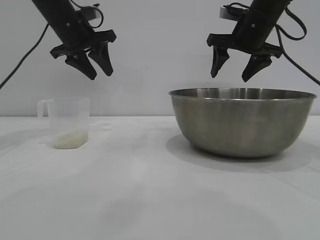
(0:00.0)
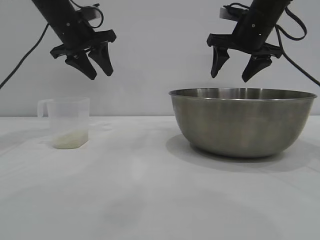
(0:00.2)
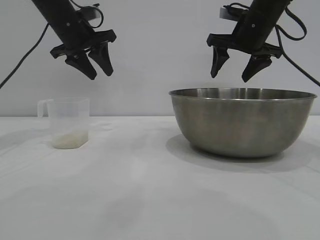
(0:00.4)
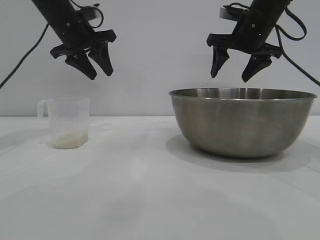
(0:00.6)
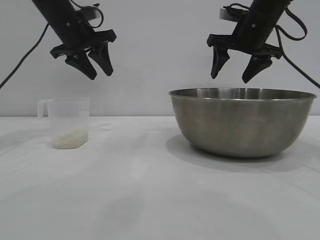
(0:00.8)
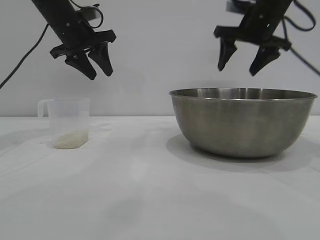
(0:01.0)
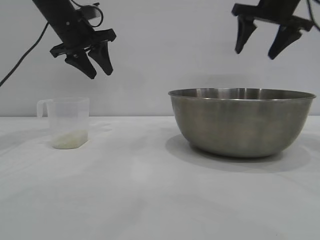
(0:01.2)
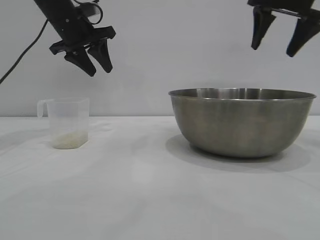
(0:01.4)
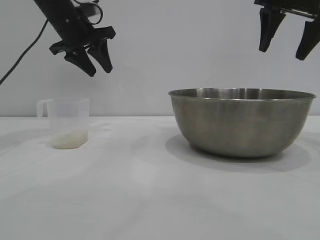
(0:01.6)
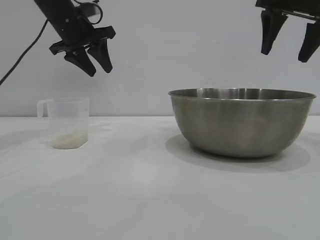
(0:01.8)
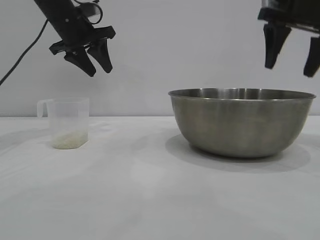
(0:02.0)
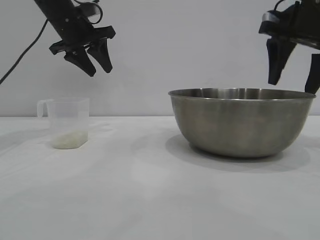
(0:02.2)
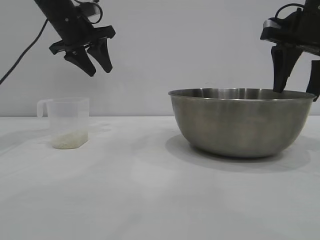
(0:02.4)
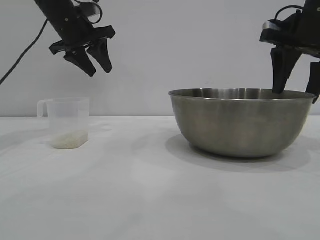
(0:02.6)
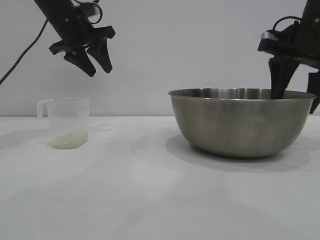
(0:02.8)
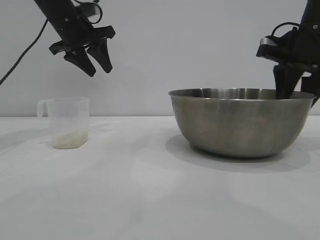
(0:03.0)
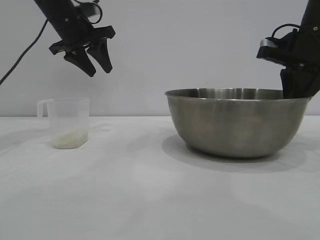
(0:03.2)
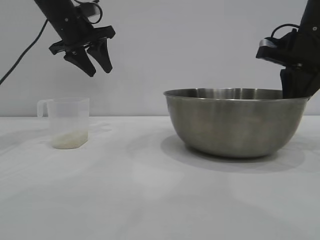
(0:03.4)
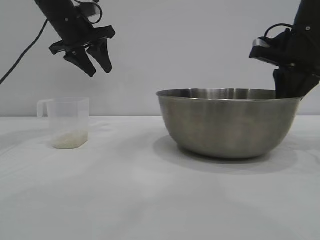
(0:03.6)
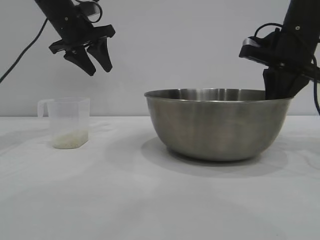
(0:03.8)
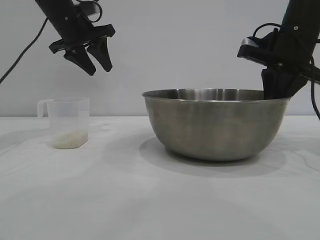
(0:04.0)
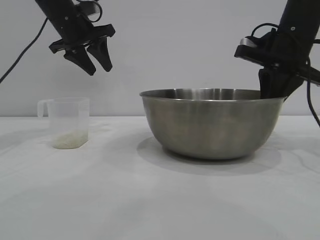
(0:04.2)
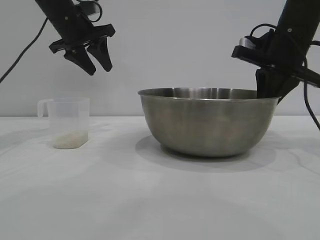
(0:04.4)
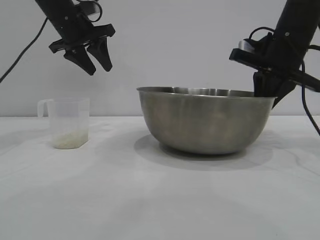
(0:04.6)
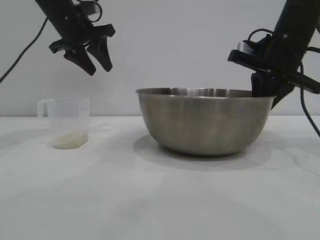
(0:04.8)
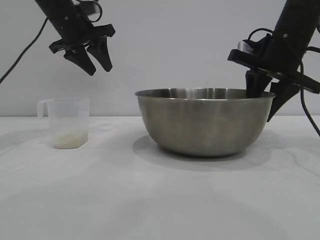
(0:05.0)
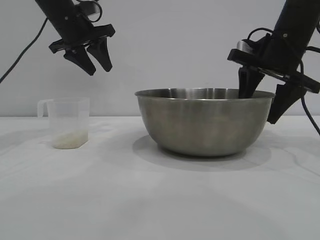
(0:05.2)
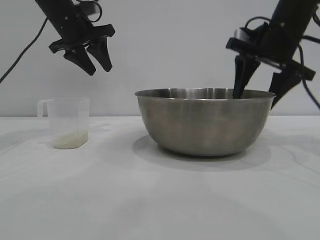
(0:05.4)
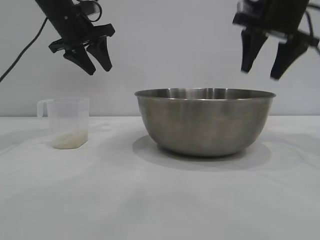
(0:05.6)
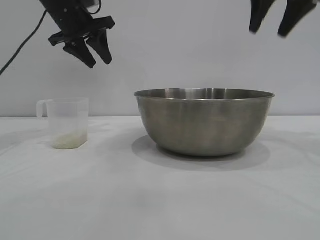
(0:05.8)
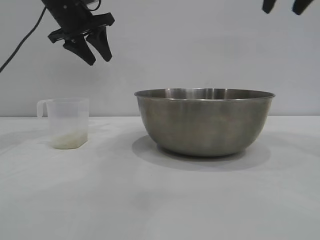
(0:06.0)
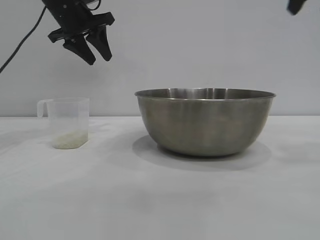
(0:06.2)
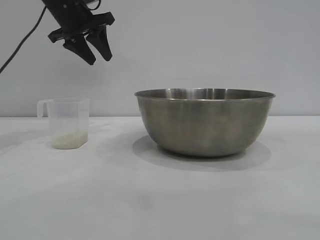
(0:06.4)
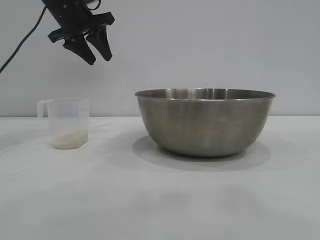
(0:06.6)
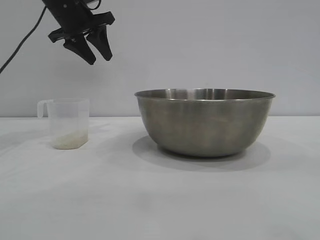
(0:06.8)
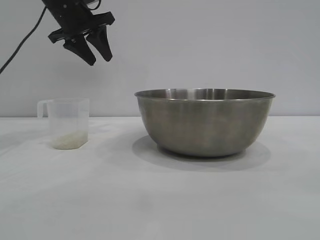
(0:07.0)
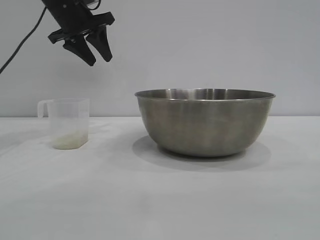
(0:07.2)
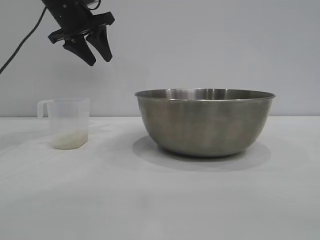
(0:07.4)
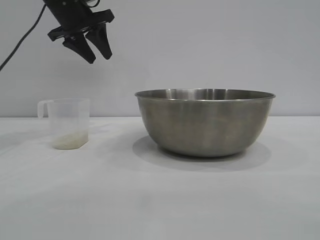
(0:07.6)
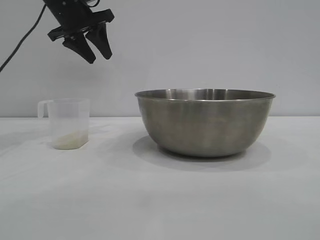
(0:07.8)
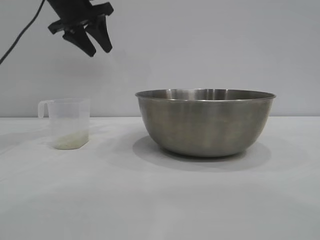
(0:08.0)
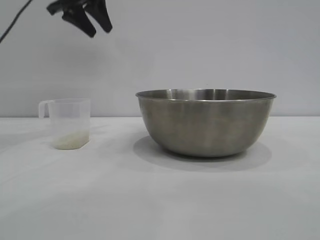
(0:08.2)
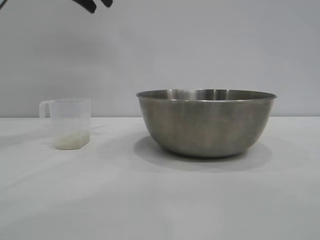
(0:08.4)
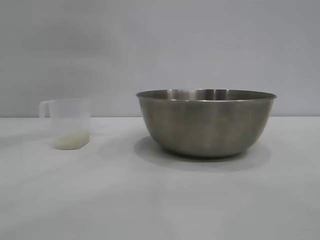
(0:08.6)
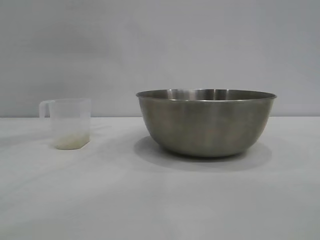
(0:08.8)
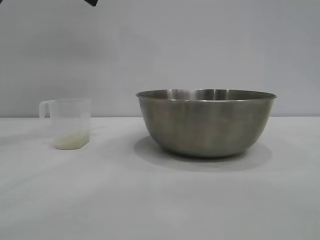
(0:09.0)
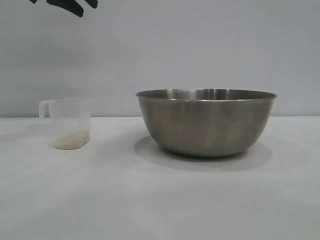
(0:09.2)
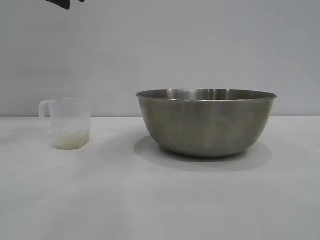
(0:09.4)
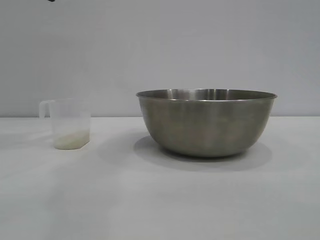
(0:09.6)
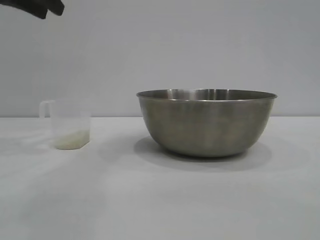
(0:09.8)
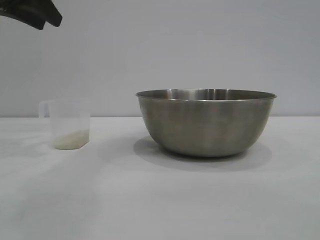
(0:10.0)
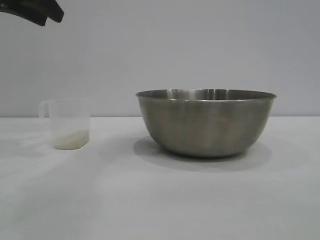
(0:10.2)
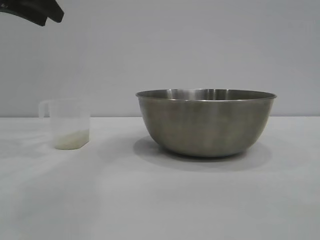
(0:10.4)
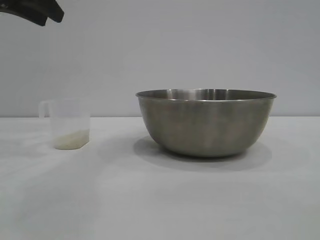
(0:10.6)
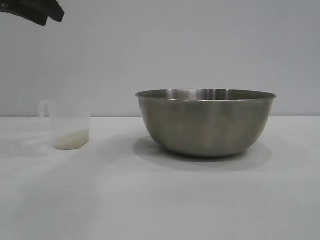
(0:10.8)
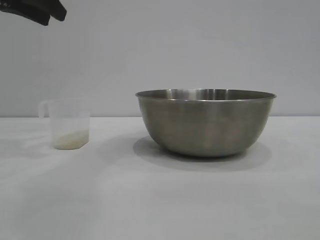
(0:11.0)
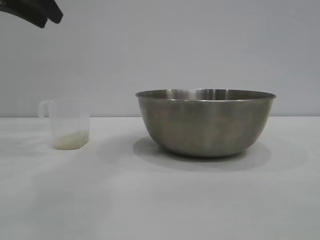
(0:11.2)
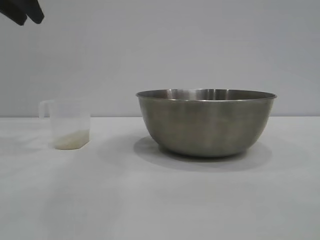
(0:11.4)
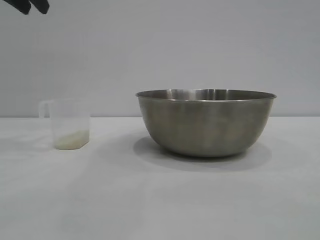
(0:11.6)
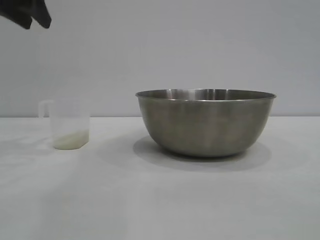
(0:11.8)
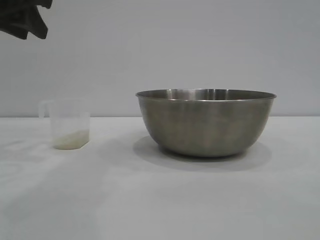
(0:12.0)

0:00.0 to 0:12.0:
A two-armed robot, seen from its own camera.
Task of the whole recording: the right gripper grasp the rice container and place it in the center of the table, the left gripper grasp the rice scoop and pour the rice into the rice container.
Step, 0:00.0 to 0:05.4: Move the bowl to the center of view with the right gripper.

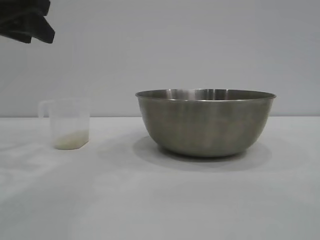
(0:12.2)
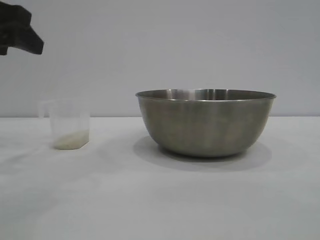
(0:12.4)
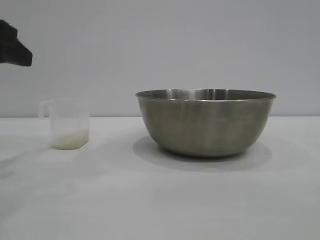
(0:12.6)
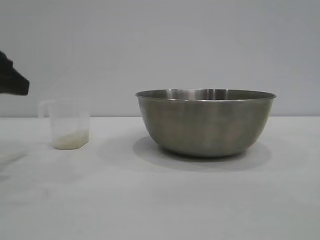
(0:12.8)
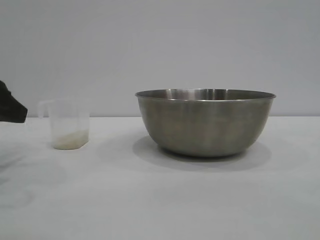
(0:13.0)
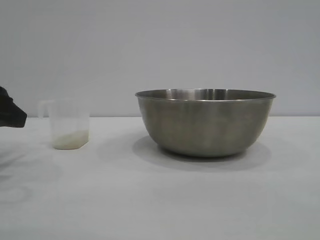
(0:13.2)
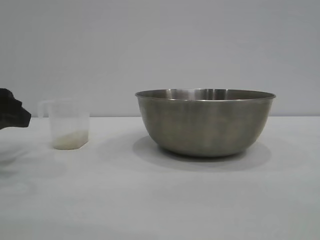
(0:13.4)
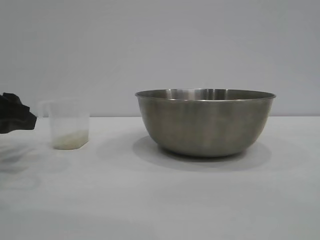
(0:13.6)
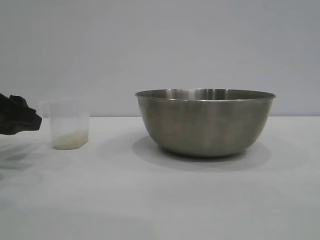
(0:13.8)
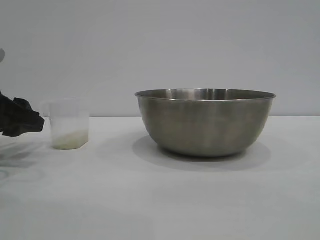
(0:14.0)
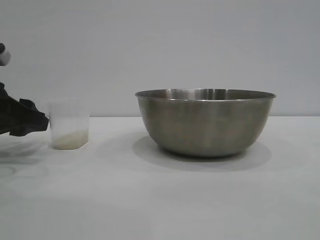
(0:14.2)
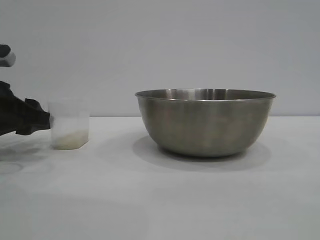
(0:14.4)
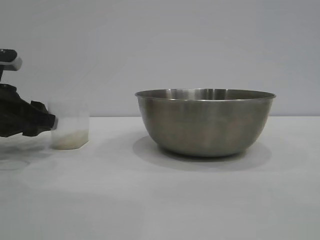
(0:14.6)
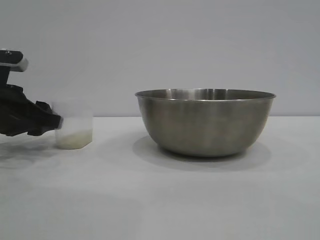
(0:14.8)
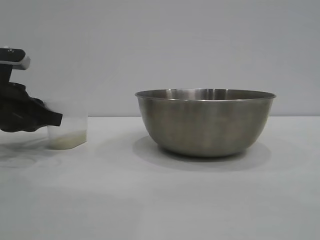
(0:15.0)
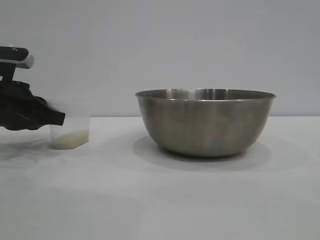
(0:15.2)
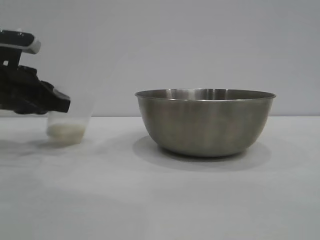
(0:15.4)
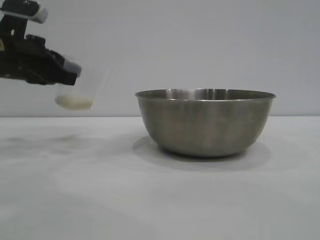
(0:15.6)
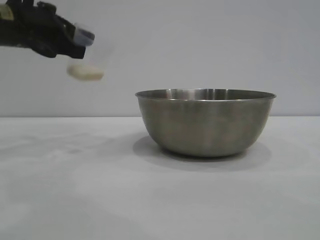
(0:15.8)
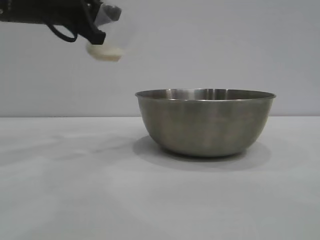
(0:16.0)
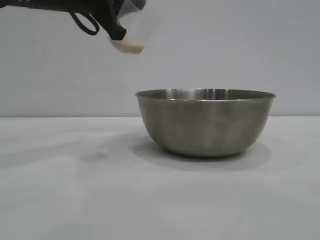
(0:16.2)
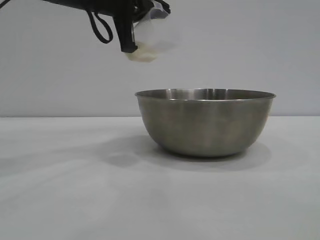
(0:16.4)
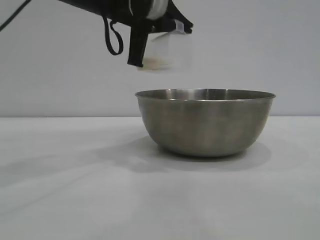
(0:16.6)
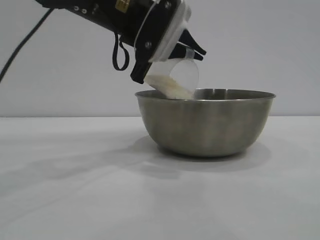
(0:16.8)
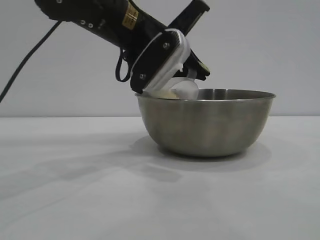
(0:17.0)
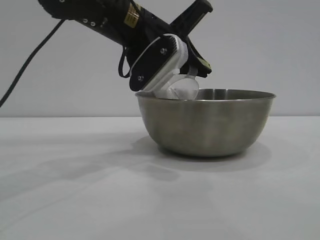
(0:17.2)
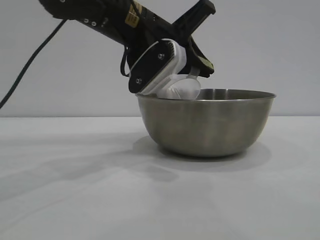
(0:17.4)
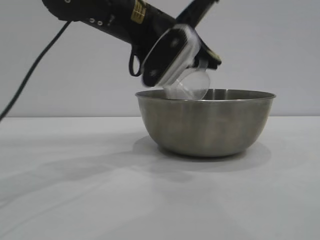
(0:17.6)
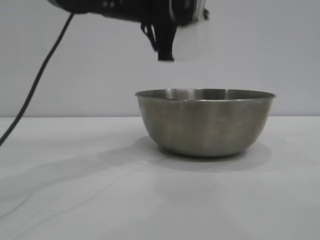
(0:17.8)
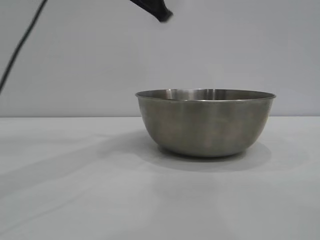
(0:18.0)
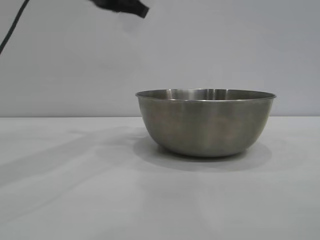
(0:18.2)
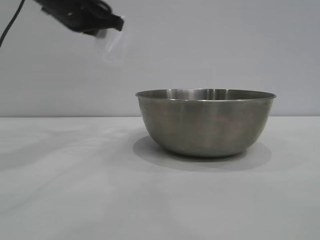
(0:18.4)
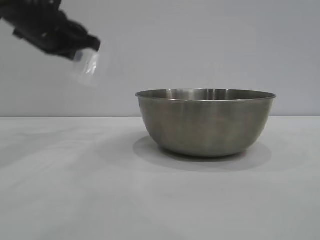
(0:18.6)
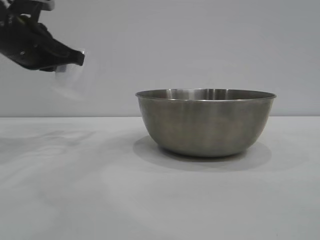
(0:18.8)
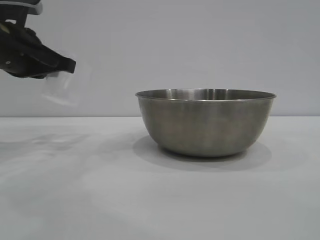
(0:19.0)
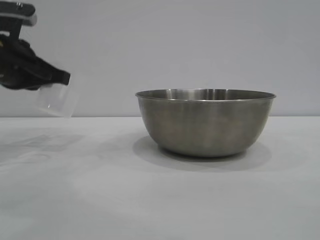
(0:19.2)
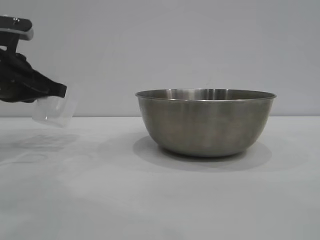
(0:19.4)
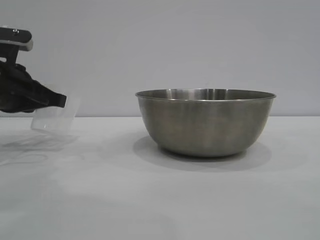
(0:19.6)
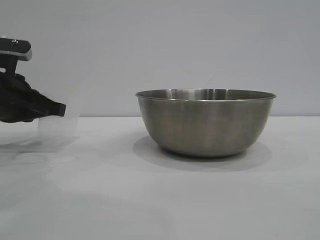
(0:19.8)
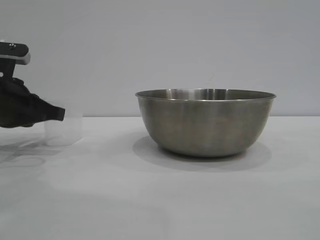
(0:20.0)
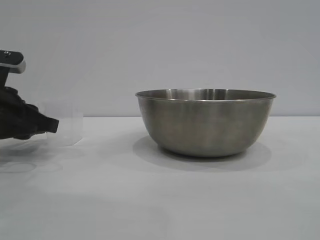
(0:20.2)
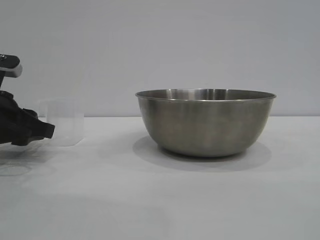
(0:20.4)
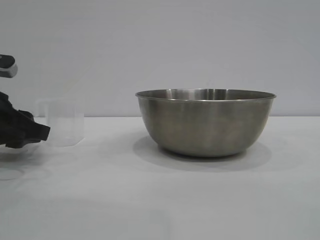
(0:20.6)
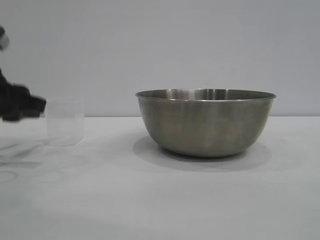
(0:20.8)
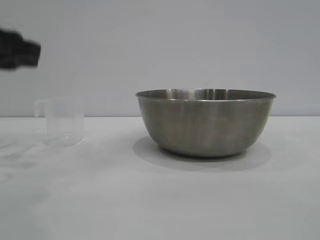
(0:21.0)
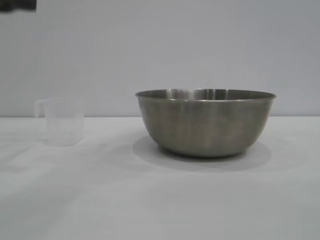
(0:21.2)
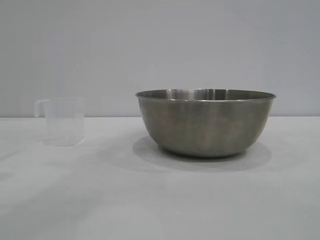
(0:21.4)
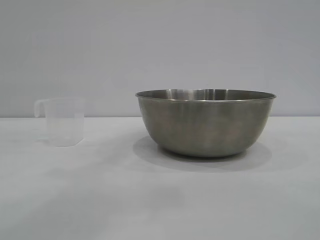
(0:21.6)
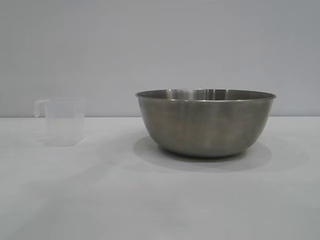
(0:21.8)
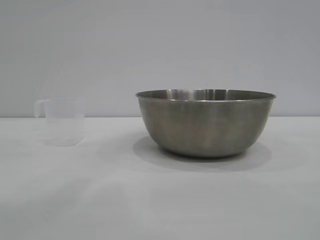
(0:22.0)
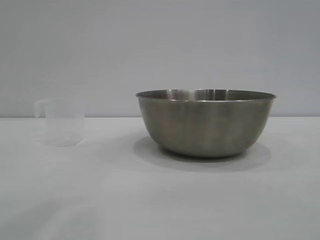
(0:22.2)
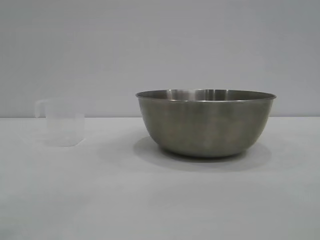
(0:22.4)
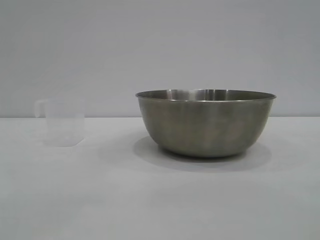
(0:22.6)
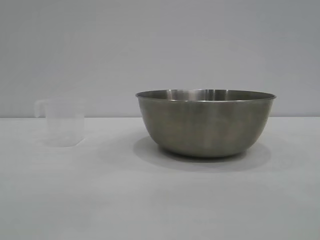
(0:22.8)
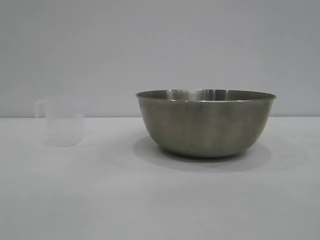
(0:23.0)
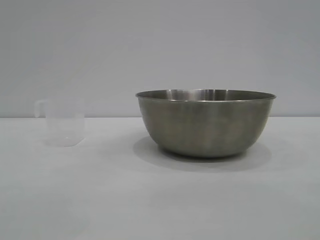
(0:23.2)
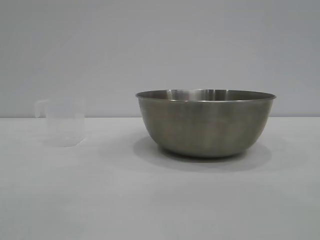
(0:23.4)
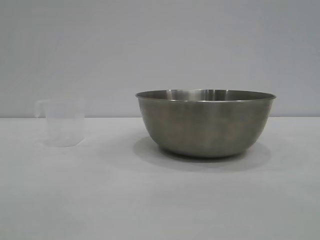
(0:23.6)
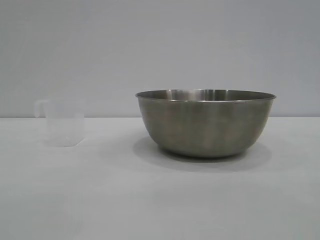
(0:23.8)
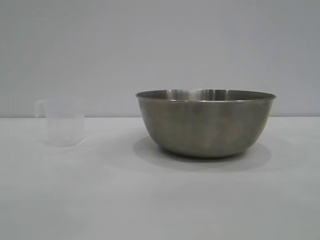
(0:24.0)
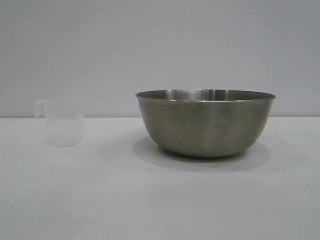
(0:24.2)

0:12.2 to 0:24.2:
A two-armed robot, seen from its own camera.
Task of the whole recording: the right gripper grasp the rice container and place it in the center of the table, the left gripper grasp the rice scoop and pour the rice into the rice container.
Step, 0:12.2 to 0:15.4: Pick up the cup with rice in it with the left gripper.
Step, 0:15.8 to 0:17.8: Pour the rice from the cup into the bowl with the left gripper.
Step, 0:18.0 to 0:21.0: Place the cup on the table with the left gripper.
